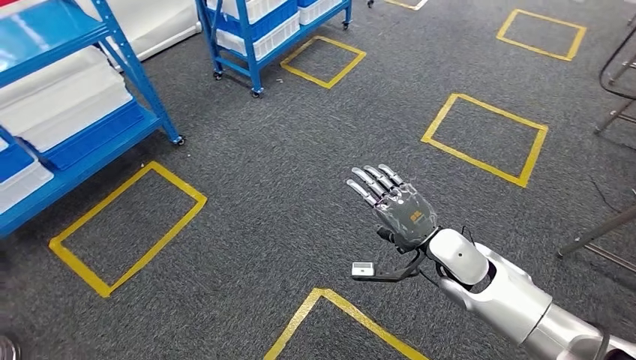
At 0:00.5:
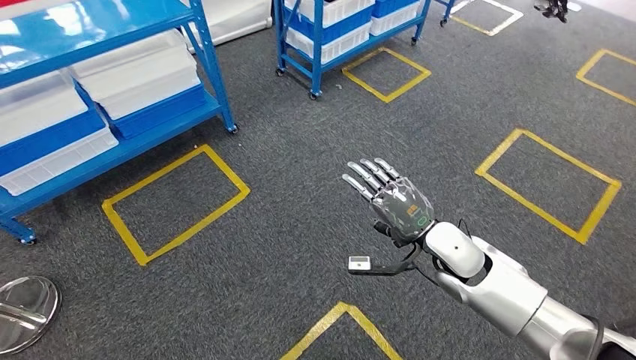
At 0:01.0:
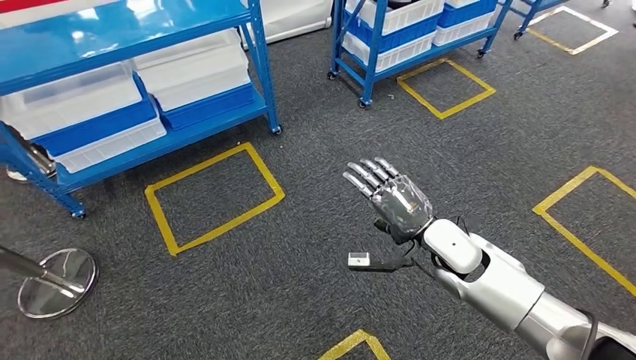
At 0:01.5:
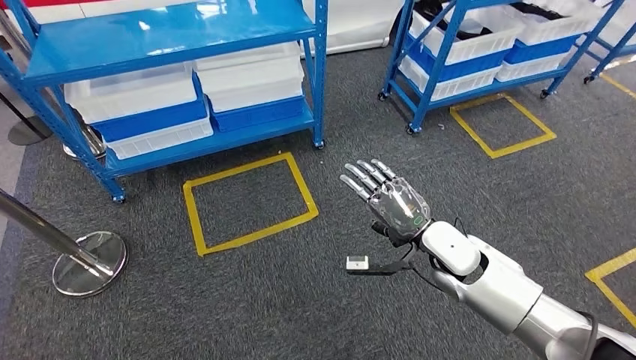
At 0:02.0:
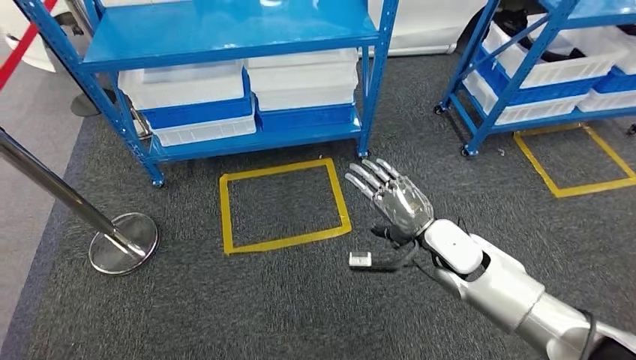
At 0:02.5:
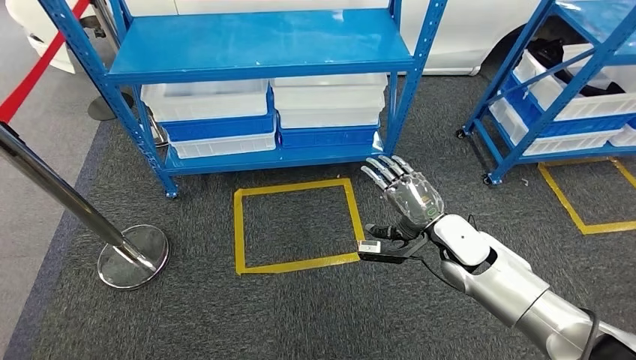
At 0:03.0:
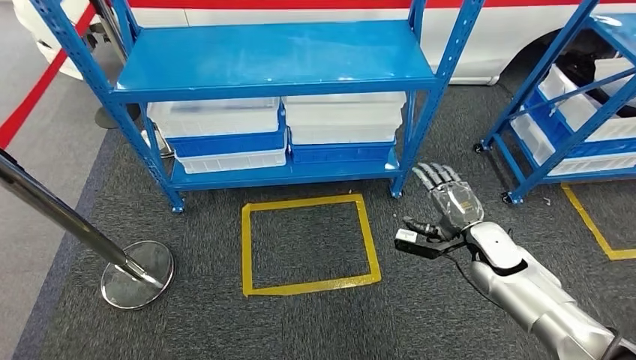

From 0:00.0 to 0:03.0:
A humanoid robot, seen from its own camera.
Step, from 0:00.0 to 0:03.0: Move to the initial position of the shelf.
